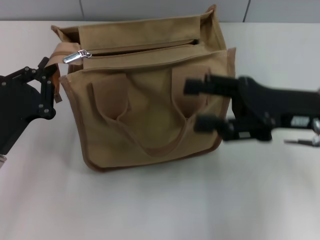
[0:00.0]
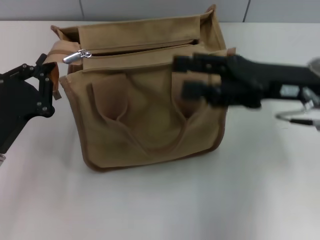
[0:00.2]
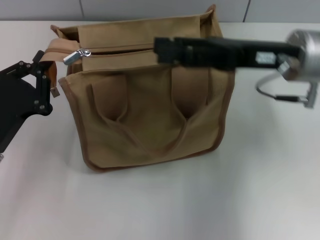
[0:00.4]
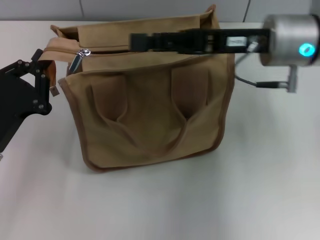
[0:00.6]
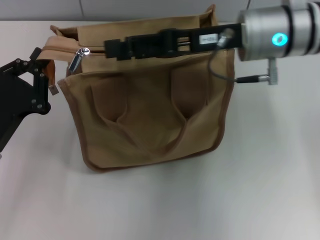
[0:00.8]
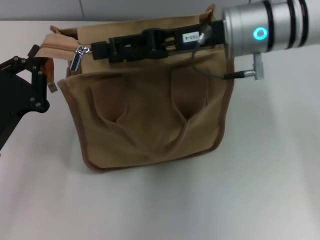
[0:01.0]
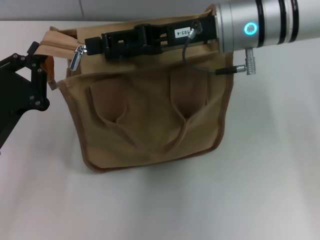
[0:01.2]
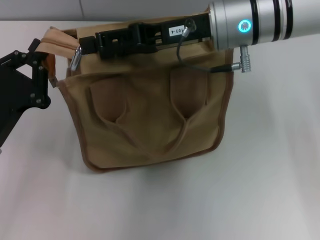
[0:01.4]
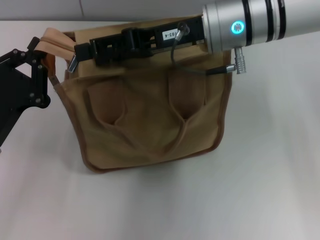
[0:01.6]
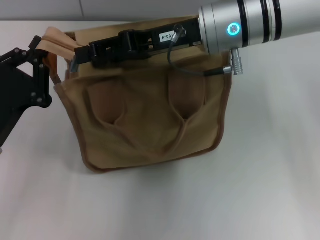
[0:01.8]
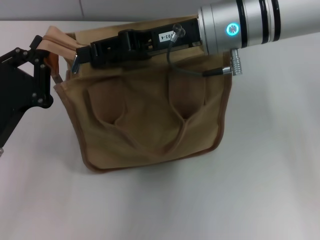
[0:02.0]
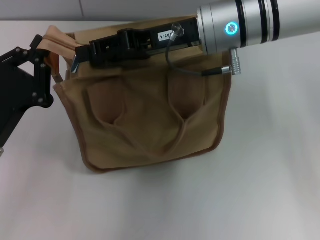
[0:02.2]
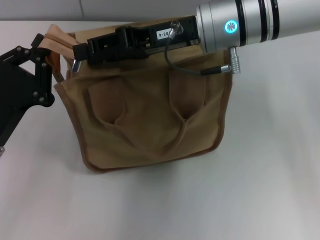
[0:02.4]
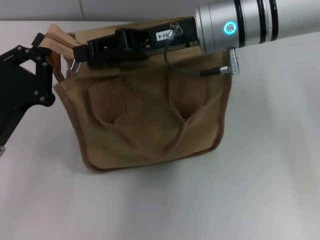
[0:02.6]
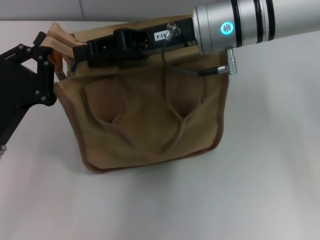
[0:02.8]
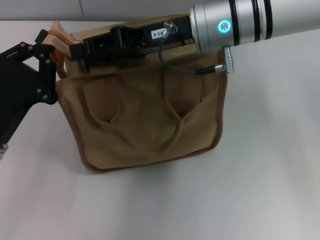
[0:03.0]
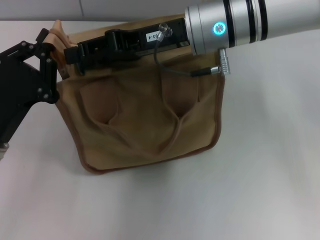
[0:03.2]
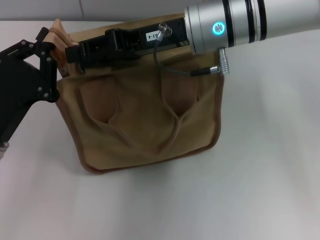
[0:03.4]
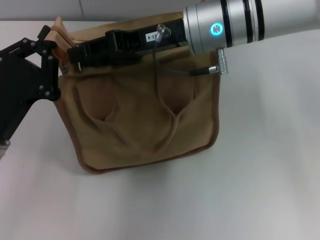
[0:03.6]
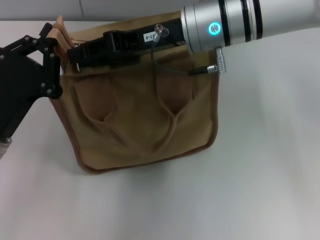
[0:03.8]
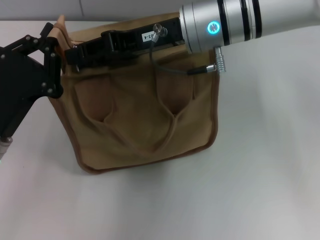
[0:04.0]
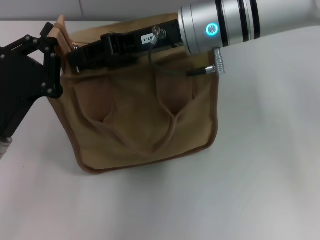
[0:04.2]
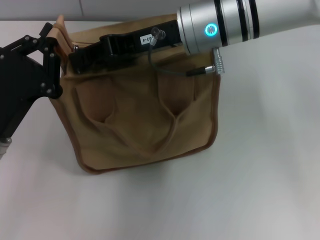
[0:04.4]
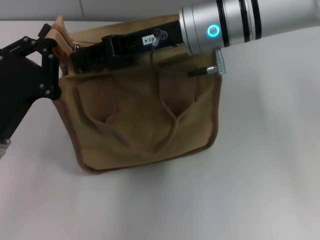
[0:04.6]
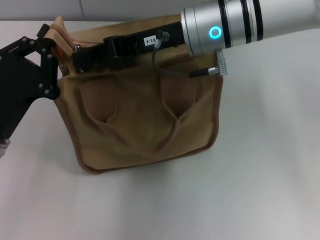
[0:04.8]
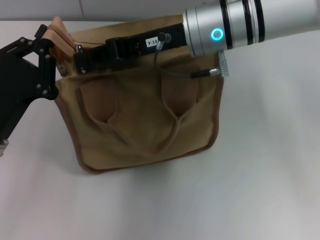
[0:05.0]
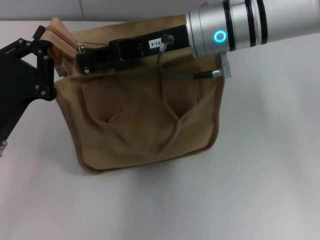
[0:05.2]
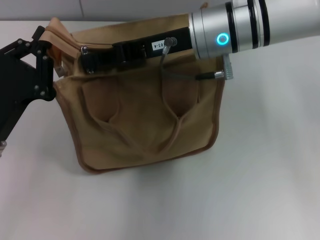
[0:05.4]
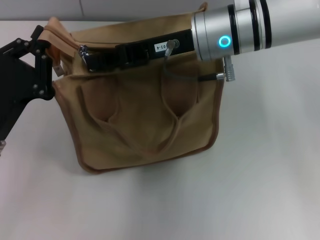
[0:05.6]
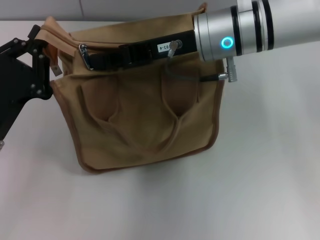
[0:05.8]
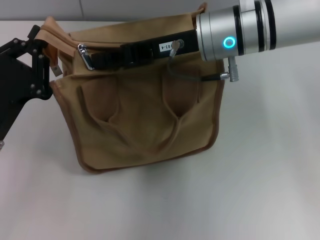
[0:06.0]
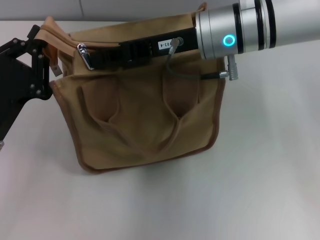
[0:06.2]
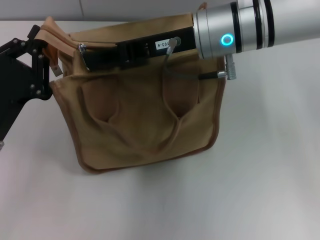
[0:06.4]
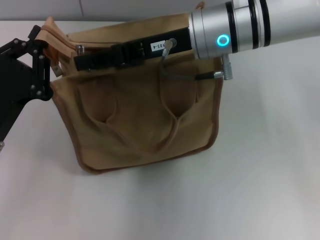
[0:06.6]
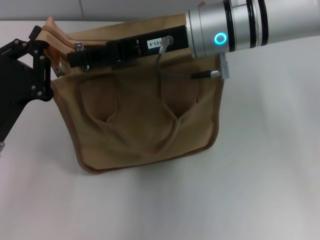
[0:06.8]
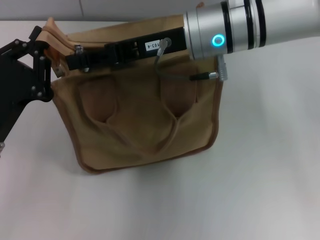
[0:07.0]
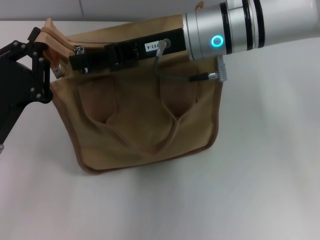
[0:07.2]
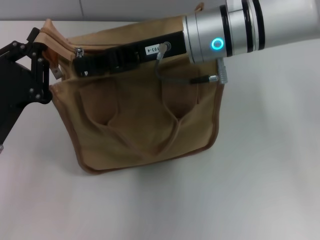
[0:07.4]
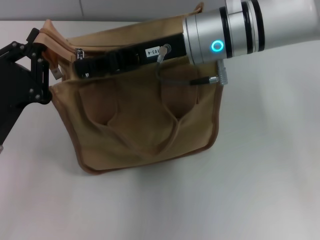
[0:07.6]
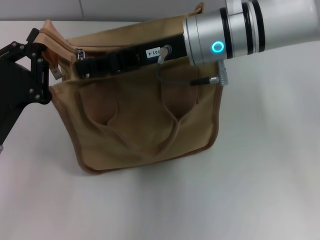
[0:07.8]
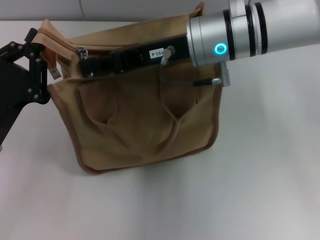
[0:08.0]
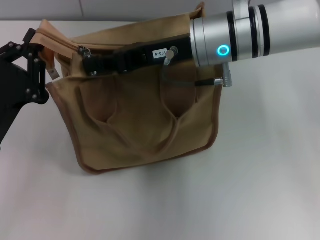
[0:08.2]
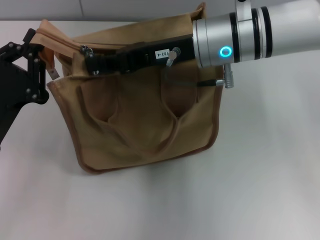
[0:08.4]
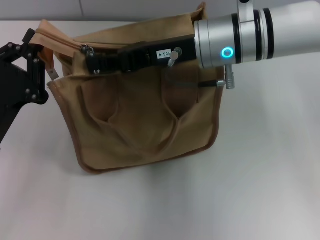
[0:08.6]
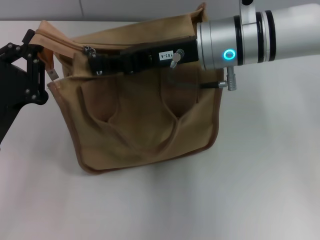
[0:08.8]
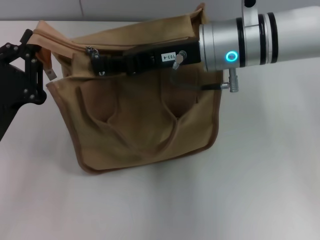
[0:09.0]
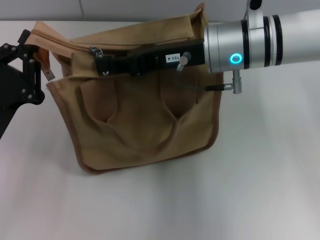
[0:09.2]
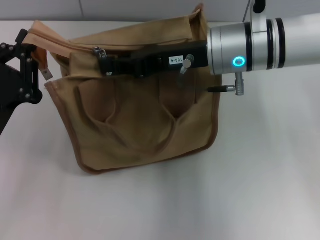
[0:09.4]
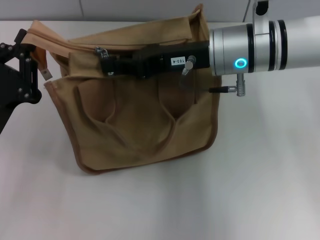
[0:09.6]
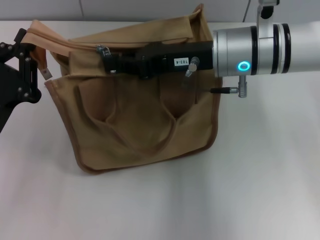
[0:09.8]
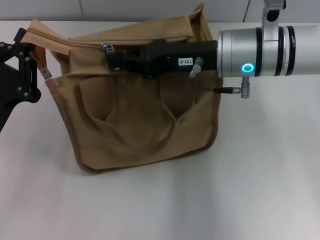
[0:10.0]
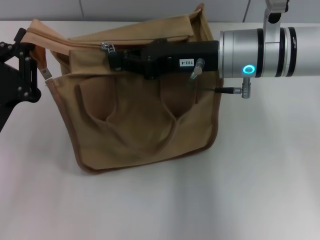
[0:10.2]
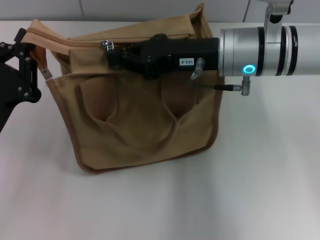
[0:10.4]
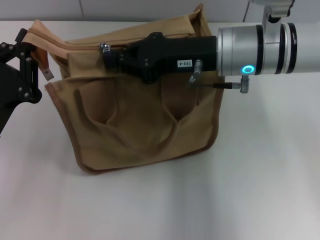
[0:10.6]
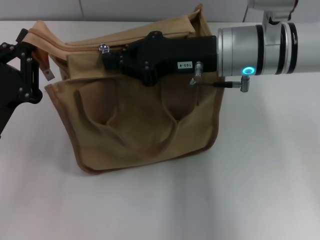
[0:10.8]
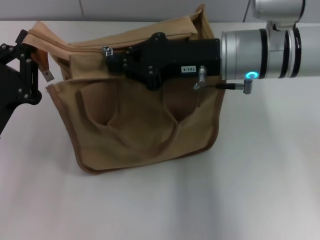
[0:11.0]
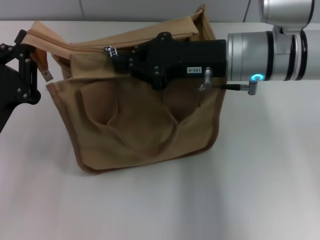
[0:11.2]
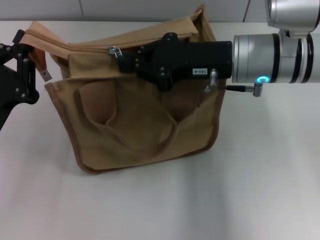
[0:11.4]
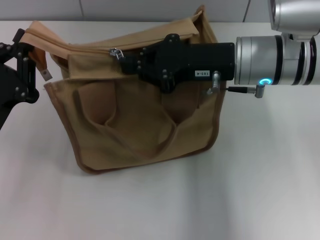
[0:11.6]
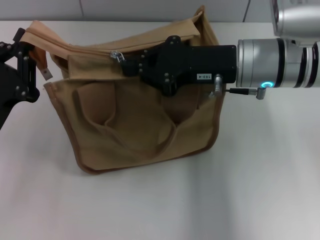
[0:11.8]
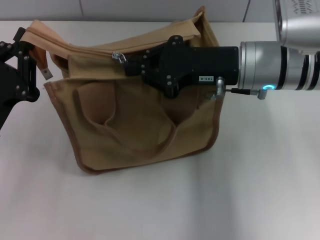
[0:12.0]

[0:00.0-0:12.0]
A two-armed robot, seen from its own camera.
0:00.0 to 0:01.6: The right gripper travels to the left, forward and upward by some 15 cm.
0:01.6 to 0:03.0: The right gripper closes up.
0:03.0 to 0:04.4: The grippers make only small movements.
0:04.4 to 0:06.0: The right gripper closes.
0:06.0 to 0:09.0: The grippers stay close to where they were, moving slightly.
0:09.0 to 0:10.4: There are only small adjustments of the grippers.
0:10.4 to 0:12.0: There are only small adjustments of the grippers.

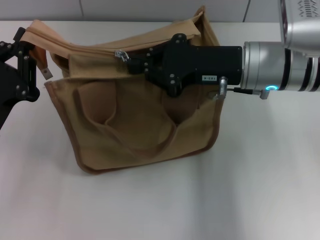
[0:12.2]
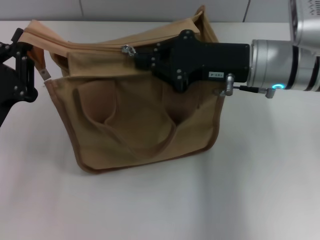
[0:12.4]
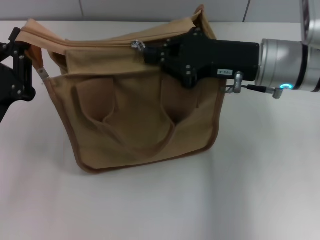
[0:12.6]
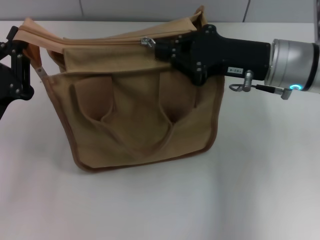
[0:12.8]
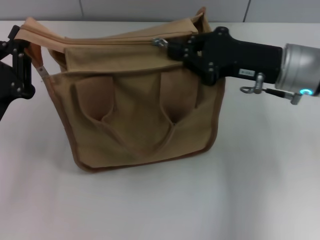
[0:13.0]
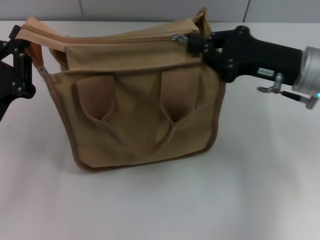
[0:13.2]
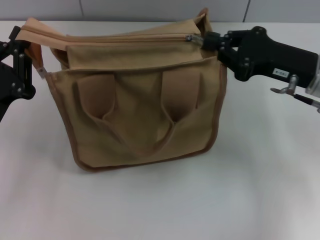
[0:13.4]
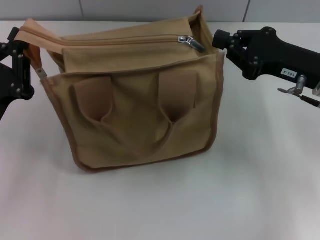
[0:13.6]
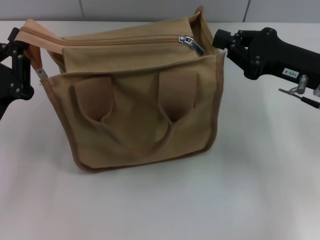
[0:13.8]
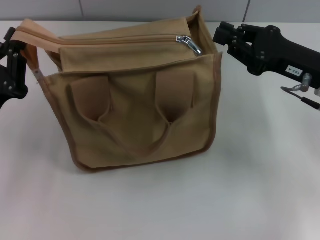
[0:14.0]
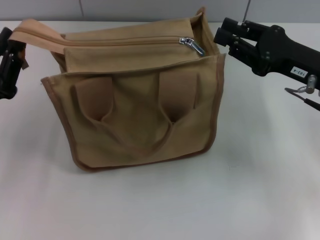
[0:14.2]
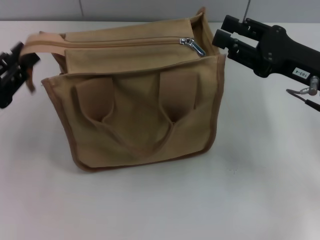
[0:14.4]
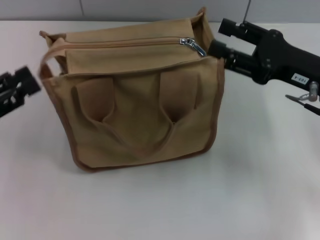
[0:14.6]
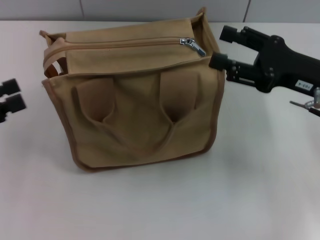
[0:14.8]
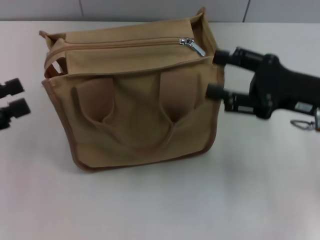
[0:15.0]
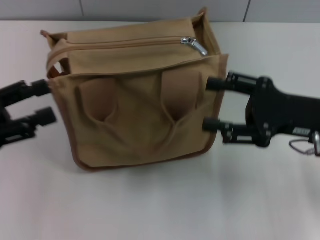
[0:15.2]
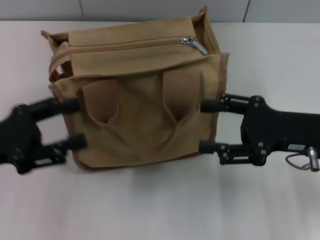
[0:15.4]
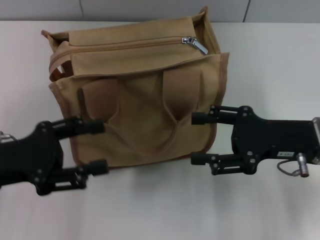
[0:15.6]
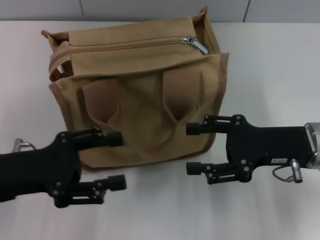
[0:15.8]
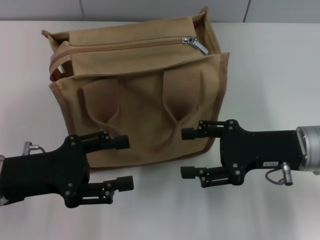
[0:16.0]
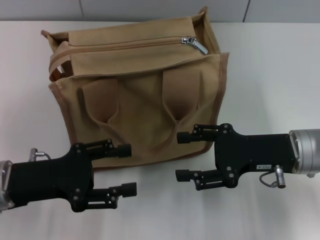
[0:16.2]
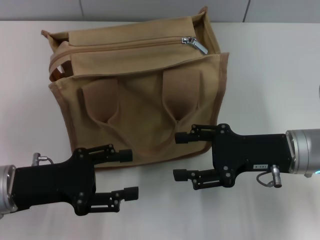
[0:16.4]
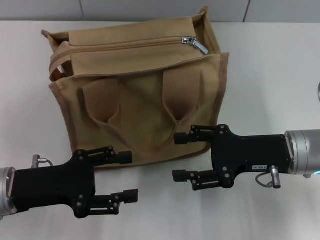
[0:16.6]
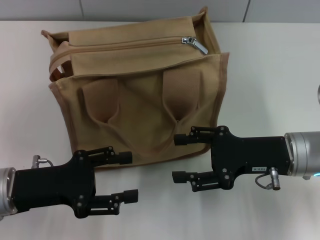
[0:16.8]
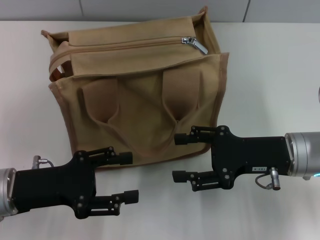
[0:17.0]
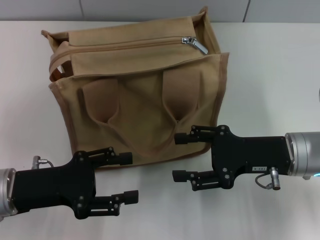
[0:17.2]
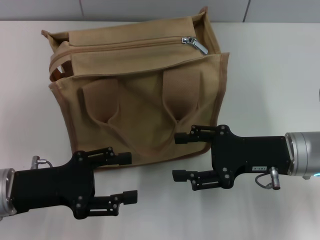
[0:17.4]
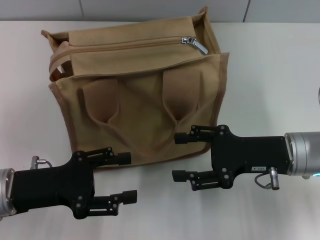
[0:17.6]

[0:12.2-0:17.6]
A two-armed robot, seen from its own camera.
Step, 0:13.6 to 0:14.4: Grab the zipper with your left hand.
0:12.2 to 0:13.6: The right gripper goes about 10 cm to the right.
0:13.6 to 0:15.0: The left gripper travels to the left and upward by approximately 10 cm, and opens up, while the right gripper opens up.
0:15.0 to 0:16.2: The right gripper shifts by some 5 cm. Meanwhile the left gripper heads to the right and downward, covering approximately 10 cm.
0:16.2 to 0:17.6: Both grippers stay put.

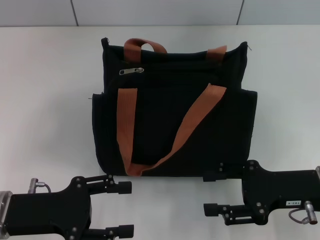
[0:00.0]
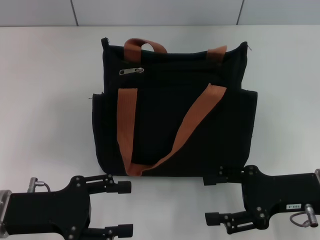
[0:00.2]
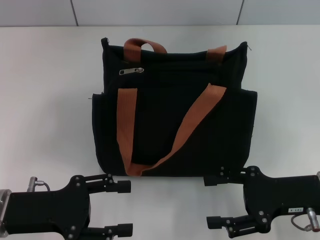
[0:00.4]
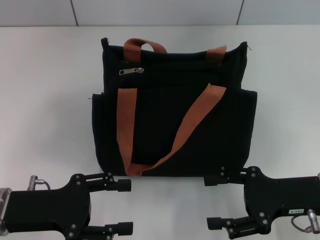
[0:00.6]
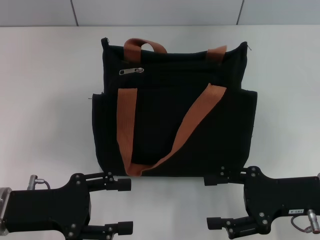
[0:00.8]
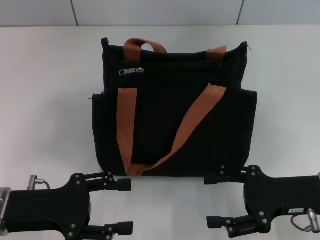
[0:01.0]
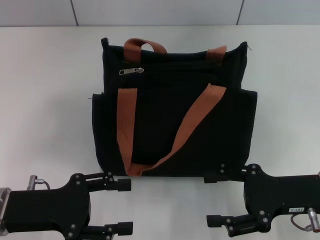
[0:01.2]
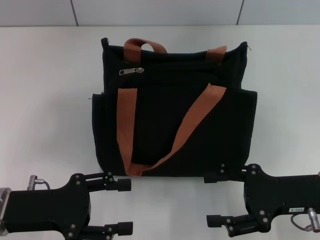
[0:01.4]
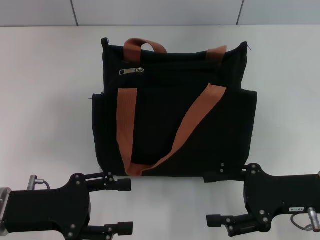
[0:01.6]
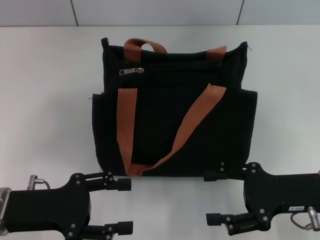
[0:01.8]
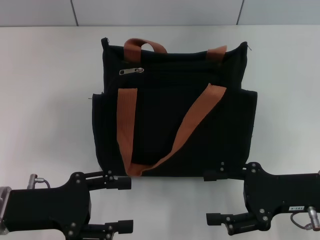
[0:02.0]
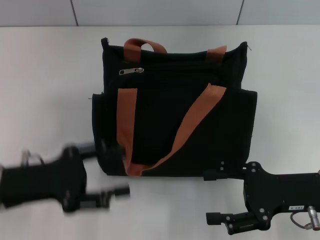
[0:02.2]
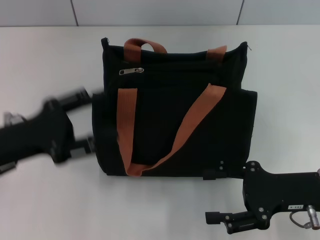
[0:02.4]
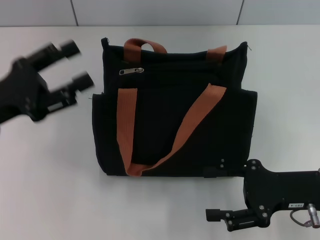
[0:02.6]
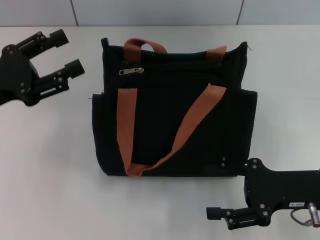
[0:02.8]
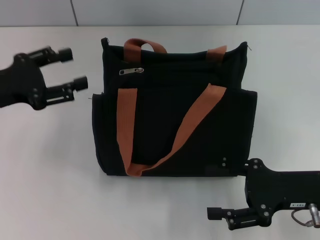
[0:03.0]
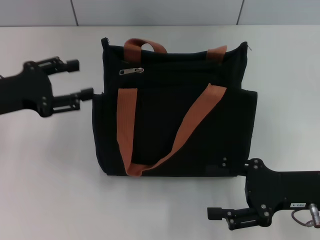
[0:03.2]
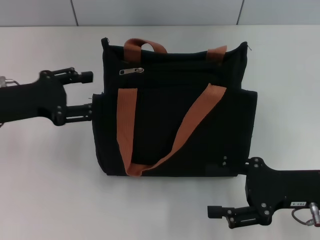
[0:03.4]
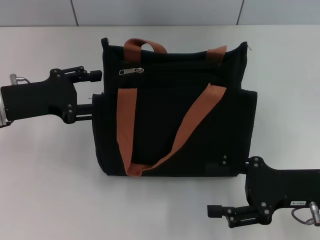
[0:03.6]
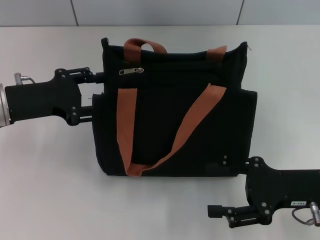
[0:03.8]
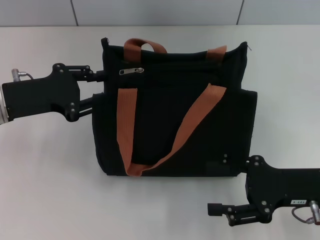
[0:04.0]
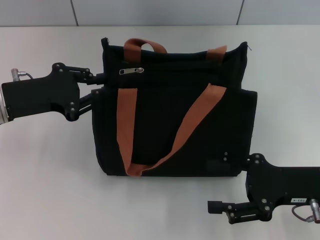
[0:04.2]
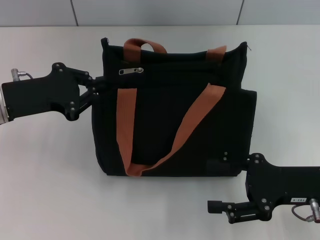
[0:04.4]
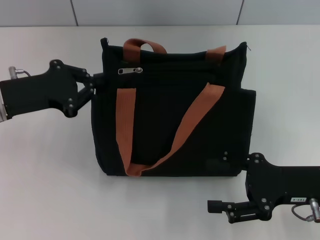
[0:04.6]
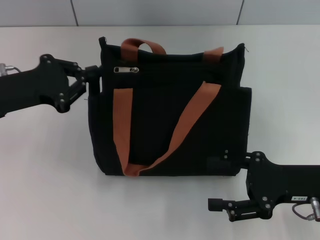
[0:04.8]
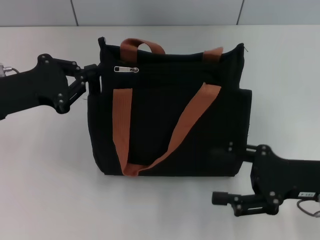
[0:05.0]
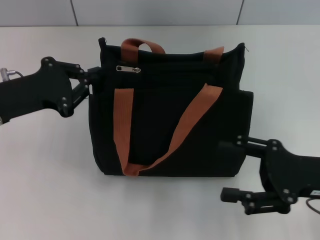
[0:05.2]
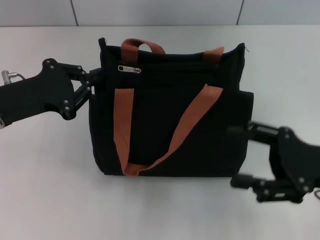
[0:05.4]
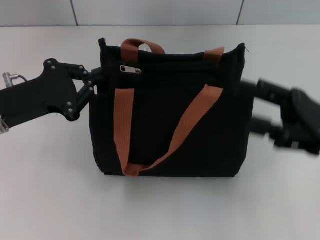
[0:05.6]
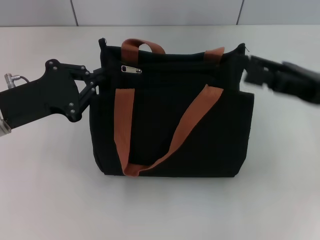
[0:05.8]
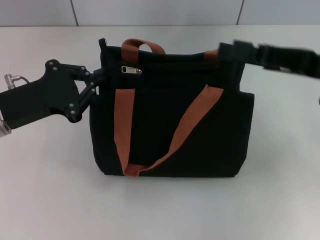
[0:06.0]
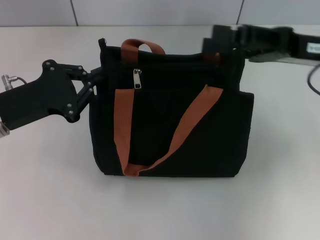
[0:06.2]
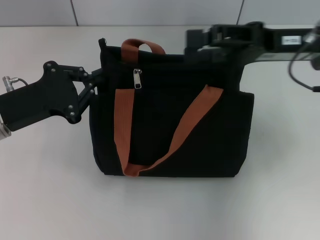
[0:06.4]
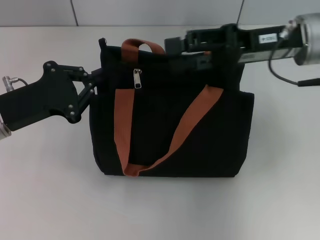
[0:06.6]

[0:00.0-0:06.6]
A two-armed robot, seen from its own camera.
0:00.0 to 0:01.6: Both grippers stay put.
0:01.6 to 0:03.2: The left gripper is displaced forward and upward by approximately 10 cm.
0:03.2 to 0:05.0: The left gripper closes up.
0:05.0 to 0:06.6: The right gripper shifts some 20 cm forward, upward and to the left.
